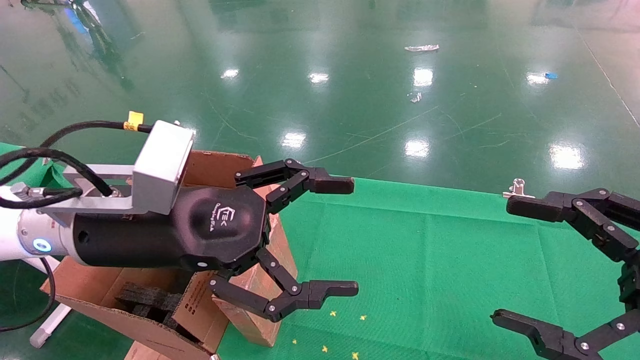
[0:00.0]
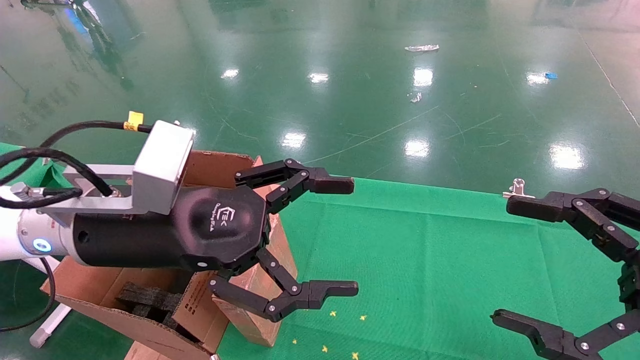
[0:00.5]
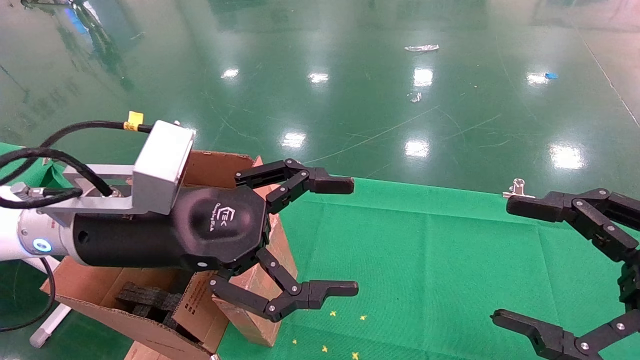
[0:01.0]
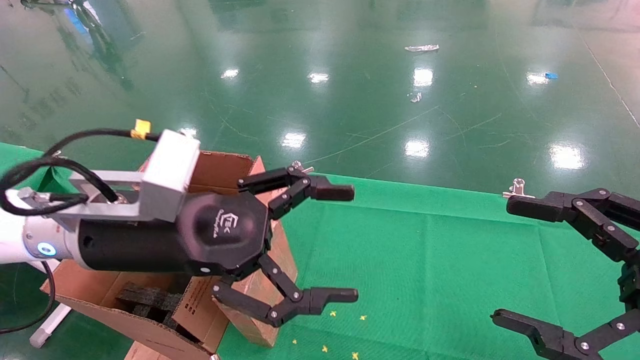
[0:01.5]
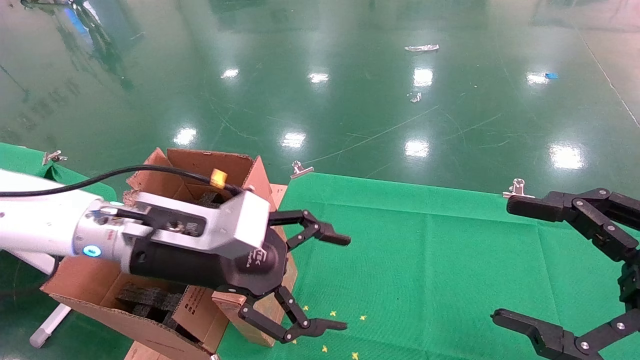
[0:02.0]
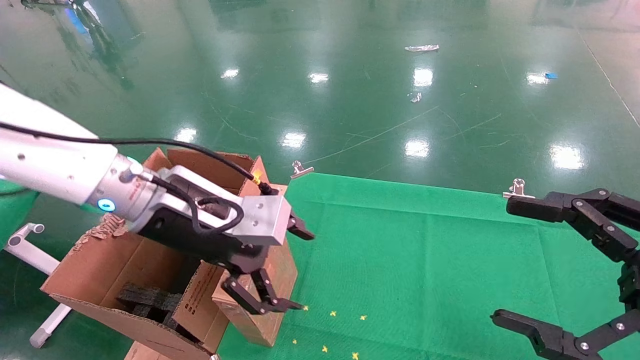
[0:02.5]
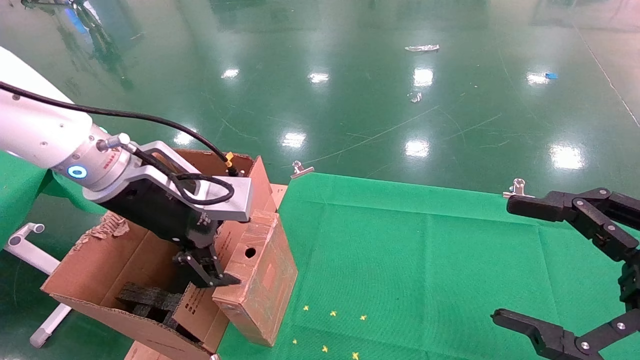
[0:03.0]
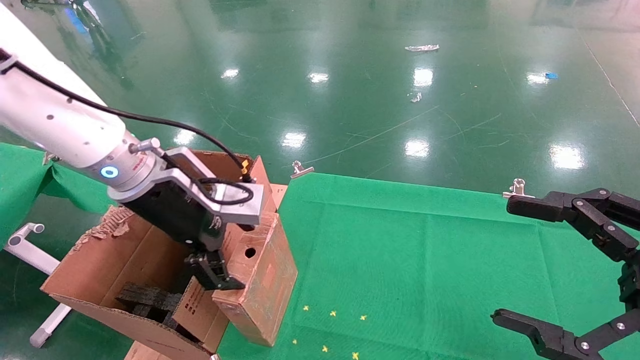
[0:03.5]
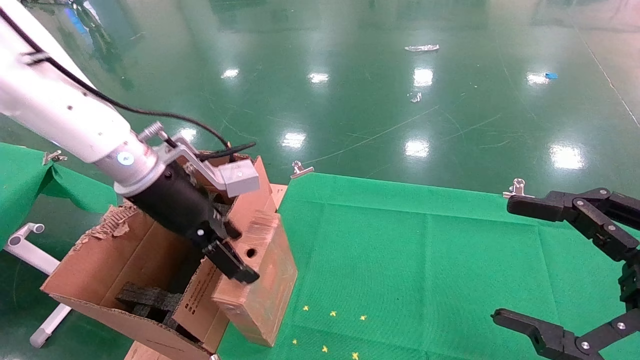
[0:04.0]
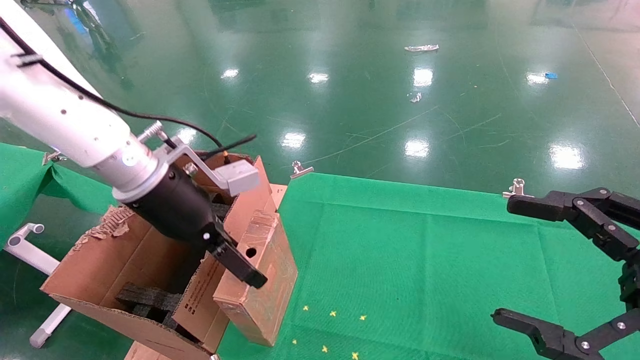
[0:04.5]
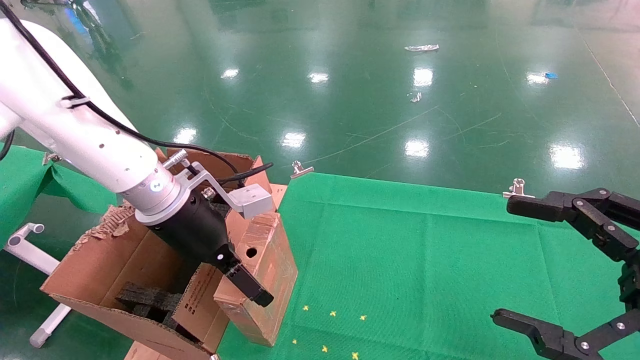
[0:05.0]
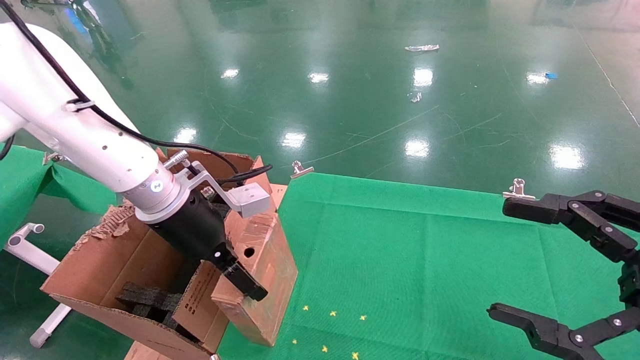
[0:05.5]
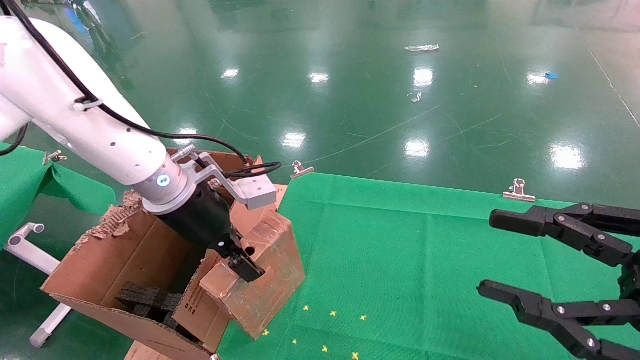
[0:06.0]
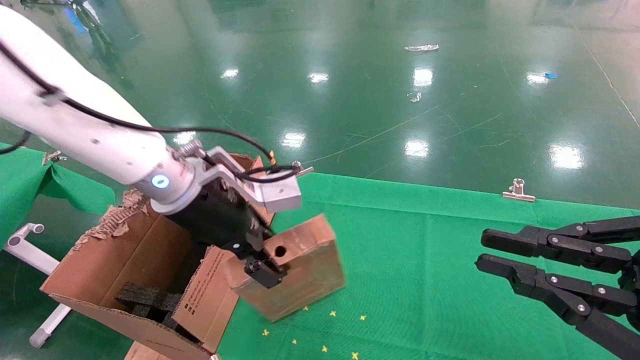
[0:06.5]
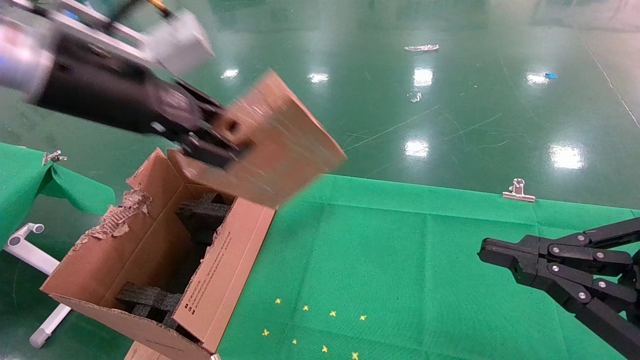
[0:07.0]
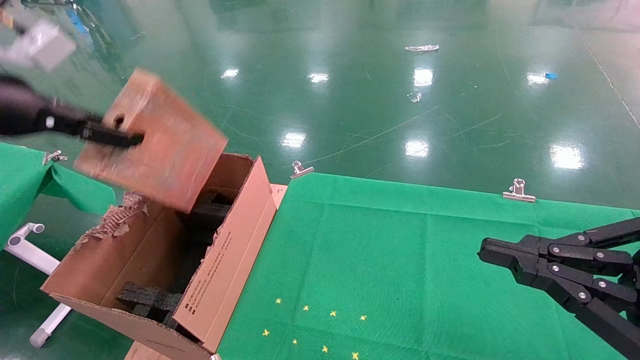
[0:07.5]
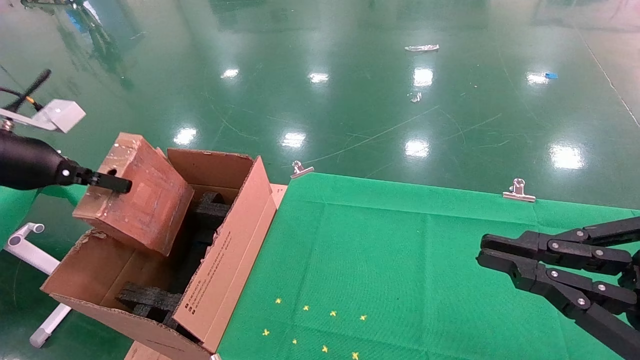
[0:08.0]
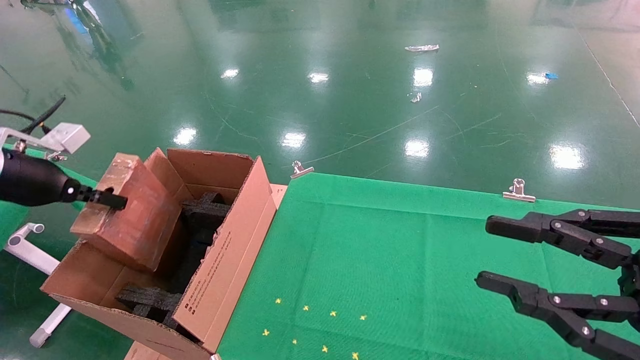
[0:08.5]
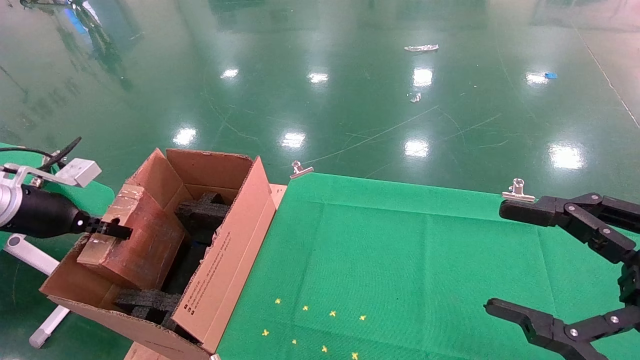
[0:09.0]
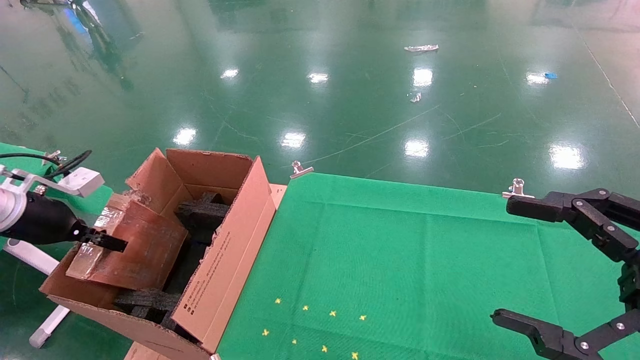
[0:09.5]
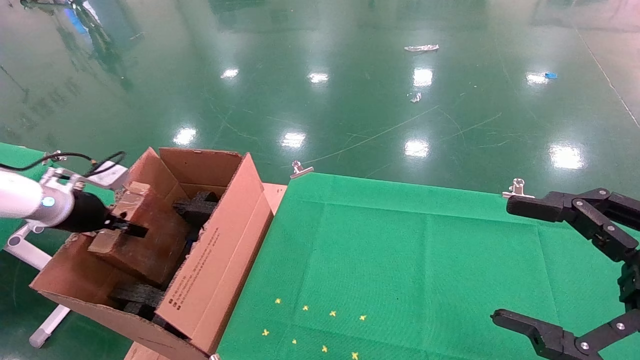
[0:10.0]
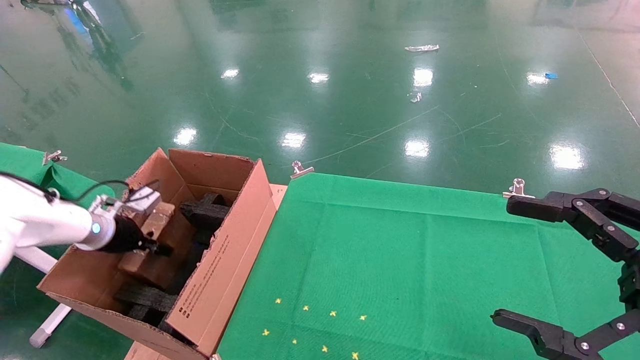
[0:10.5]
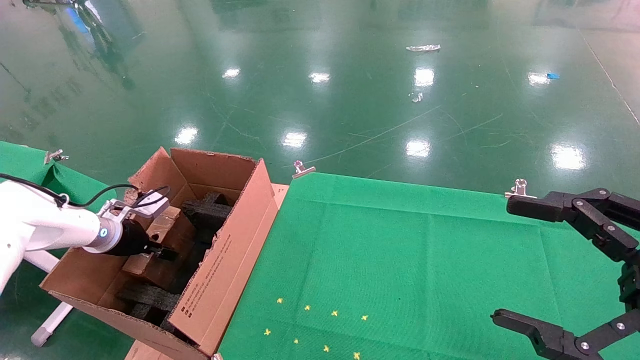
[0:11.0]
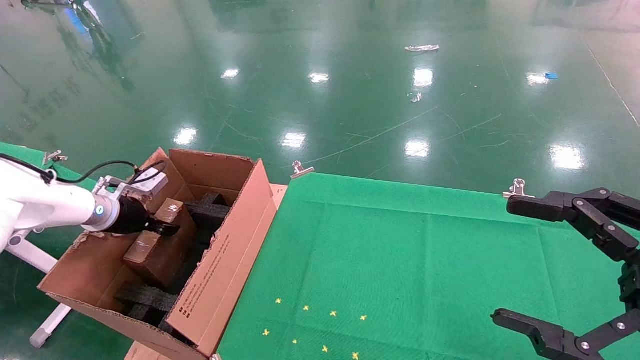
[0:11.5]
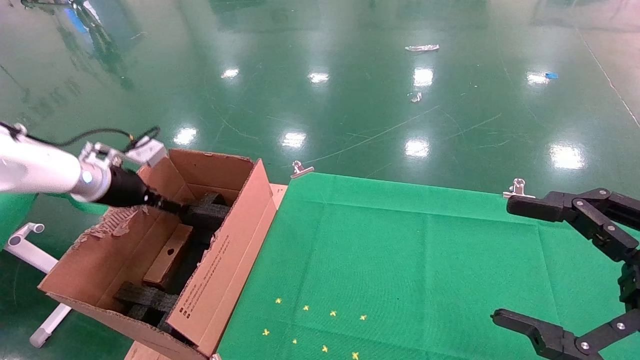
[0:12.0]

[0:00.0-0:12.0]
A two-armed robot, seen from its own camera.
Task of the whole recording: using a robotic arm to pick up a cardboard box and palace it the carton.
Step, 0:01.5 to 0:06.0: Pick up the mouse and the power cord paper box.
0:02.0 to 0:04.0: The left gripper moves forward, some 5 cm.
0:04.0 to 0:06.0: The right gripper closes. Meanwhile the left gripper closes.
0:06.0 to 0:08.0: The left gripper heads to the left, covering some 25 cm, and closes up. The right gripper closes its fingers.
0:08.0 to 0:10.0: The right gripper opens its fingers, while the left gripper moves downward and forward, about 15 cm.
0:10.0 to 0:12.0: The left gripper shifts about 10 cm upward and to the right, and opens.

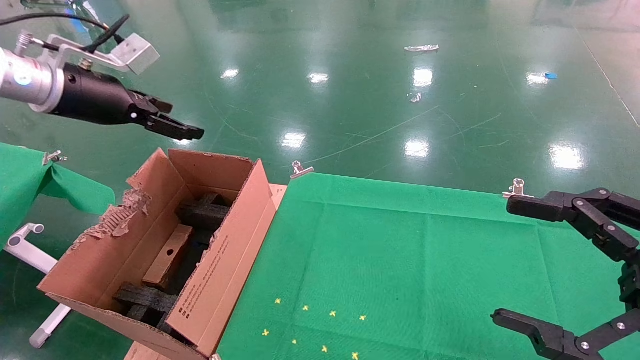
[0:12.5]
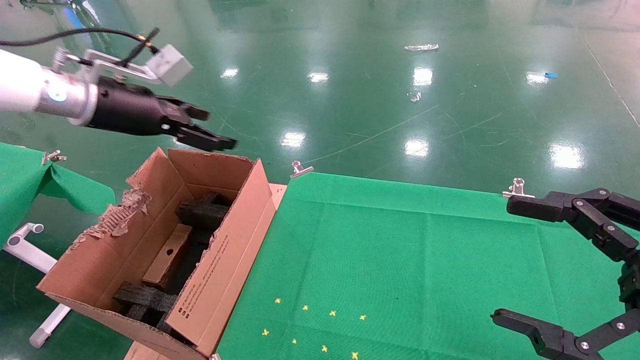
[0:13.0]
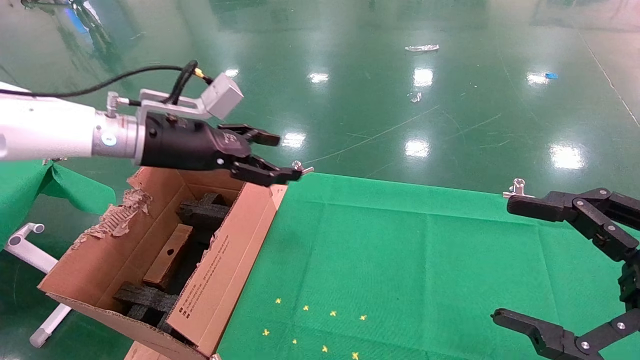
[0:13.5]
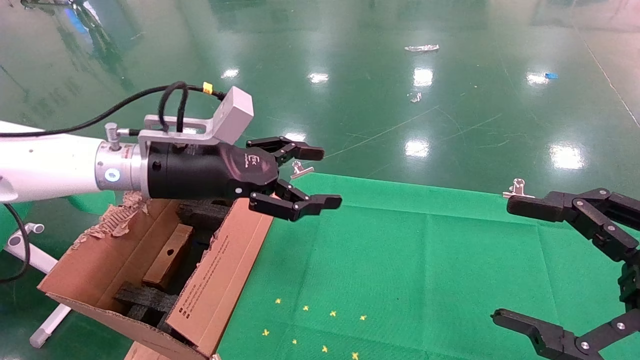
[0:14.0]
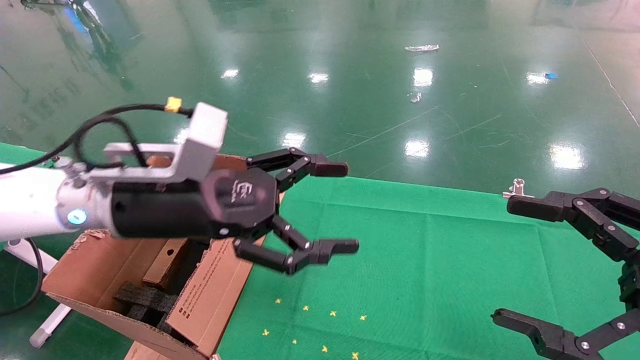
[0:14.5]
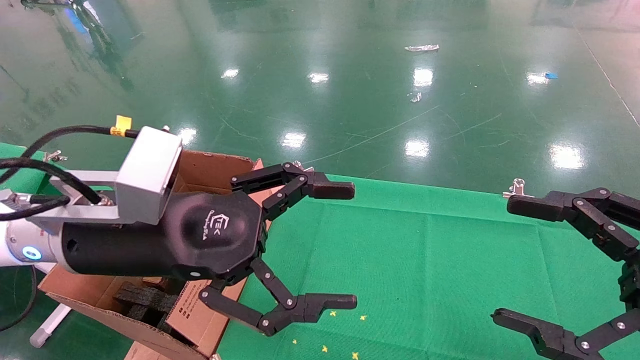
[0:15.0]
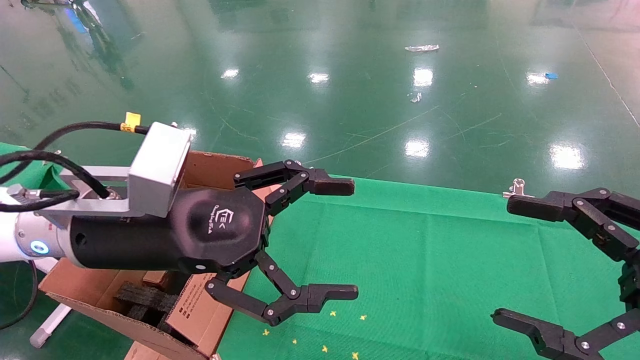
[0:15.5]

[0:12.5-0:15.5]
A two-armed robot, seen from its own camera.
Task of the whole recording: using a robotic arm to pick up a cardboard box and palace it the carton.
0:12.5 to 0:14.0: The left gripper shifts about 20 cm to the right and downward.
0:14.0 to 0:15.5: The left gripper moves backward, about 10 cm.
